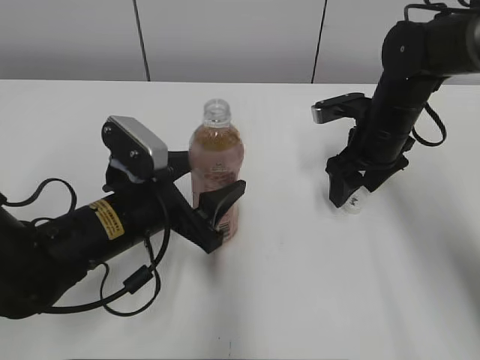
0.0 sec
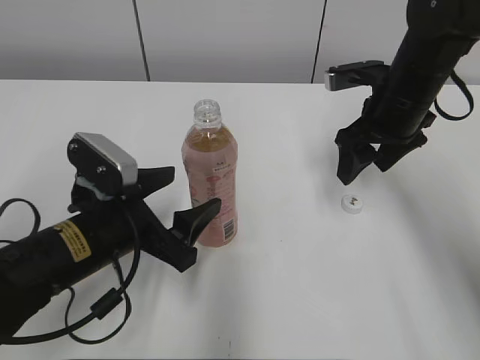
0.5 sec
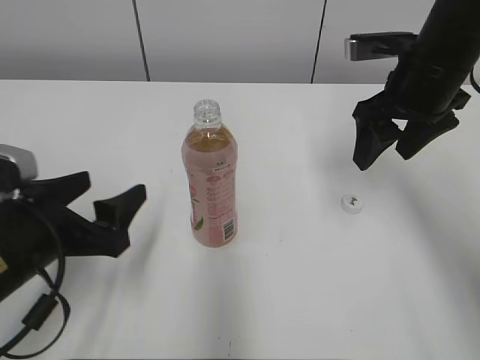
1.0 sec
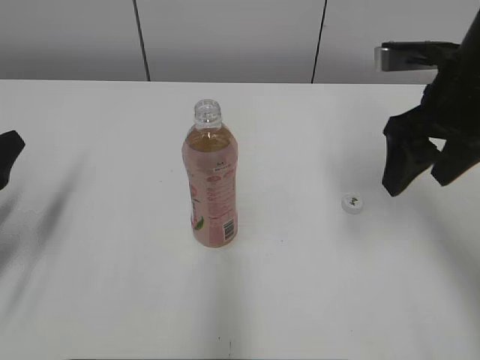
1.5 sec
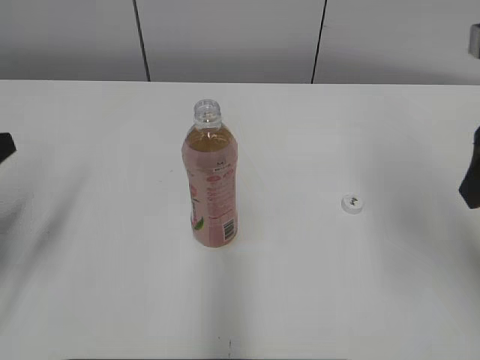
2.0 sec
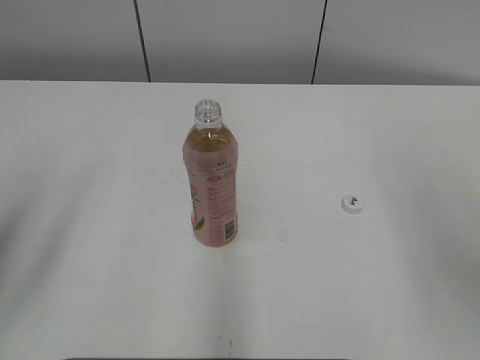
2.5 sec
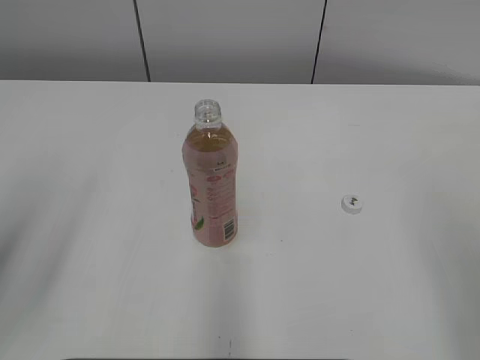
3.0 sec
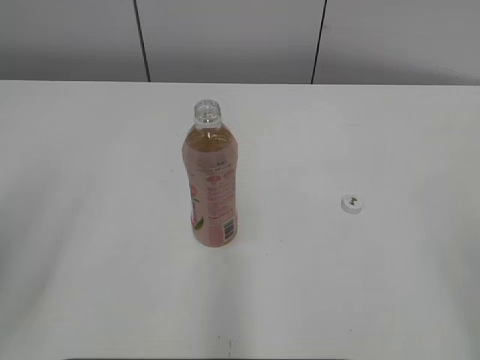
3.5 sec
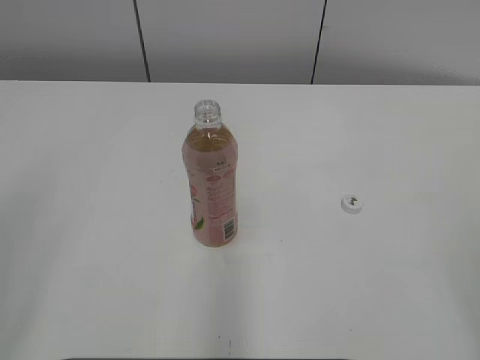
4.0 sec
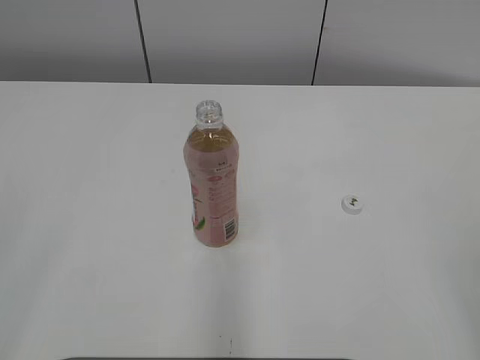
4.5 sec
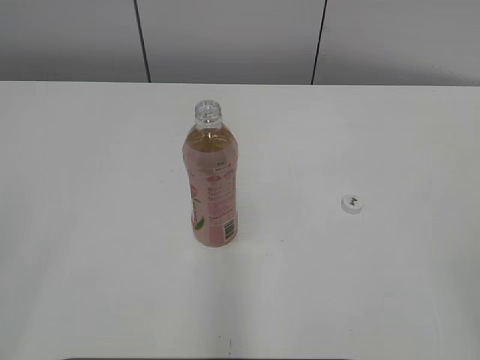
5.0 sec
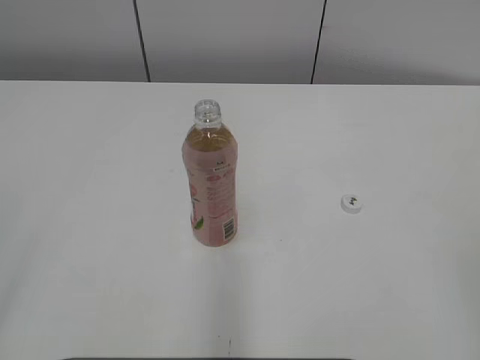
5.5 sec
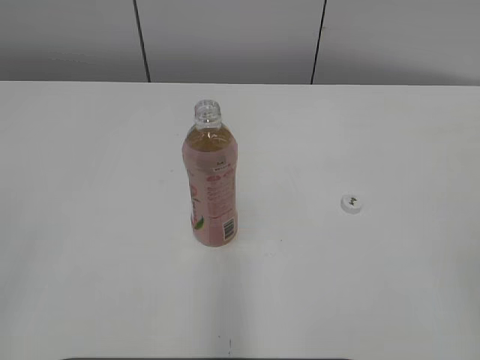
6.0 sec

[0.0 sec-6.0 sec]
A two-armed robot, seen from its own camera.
0.0 sec to 2.0 sec: The right gripper moves upward and backward, roughly 25 cm. The left gripper is displaced to the left and upward by roughly 20 cm.
2.0 sec to 4.0 sec: The right gripper travels backward by some 20 cm. Meanwhile the left gripper is displaced backward and upward by approximately 15 cm.

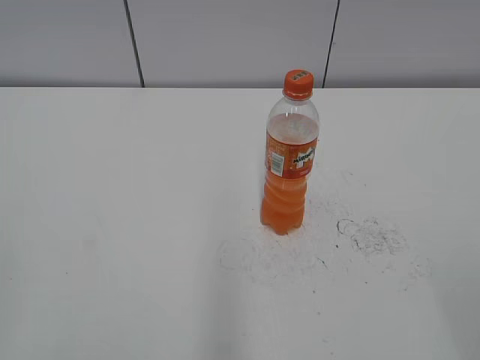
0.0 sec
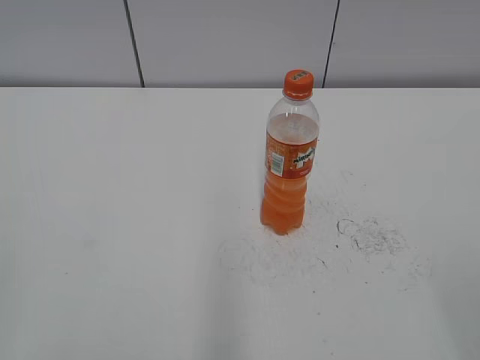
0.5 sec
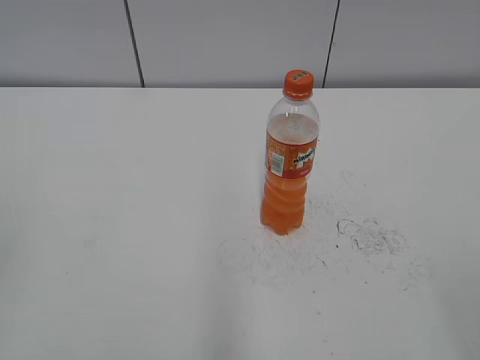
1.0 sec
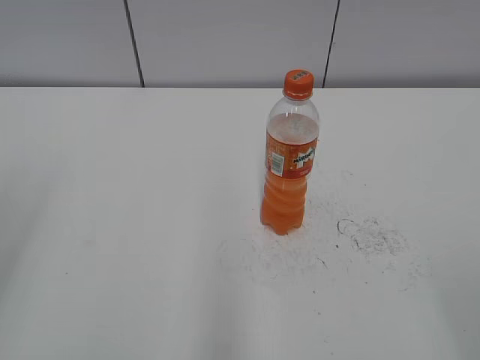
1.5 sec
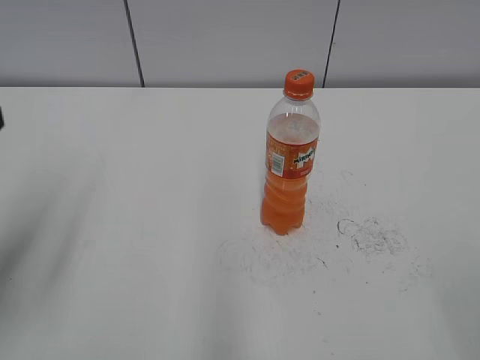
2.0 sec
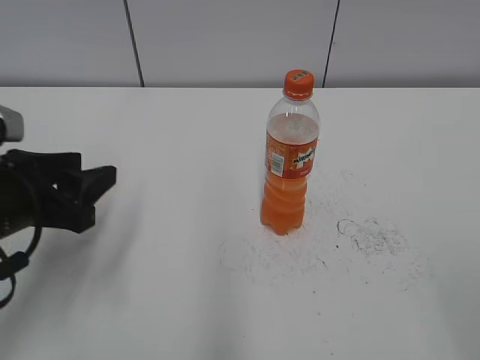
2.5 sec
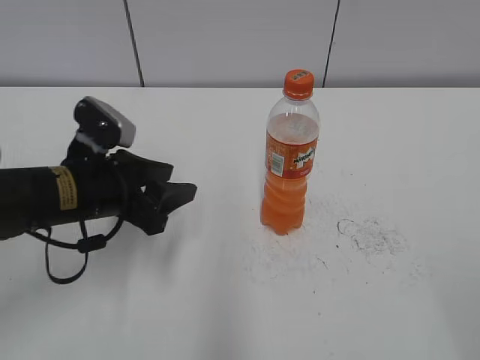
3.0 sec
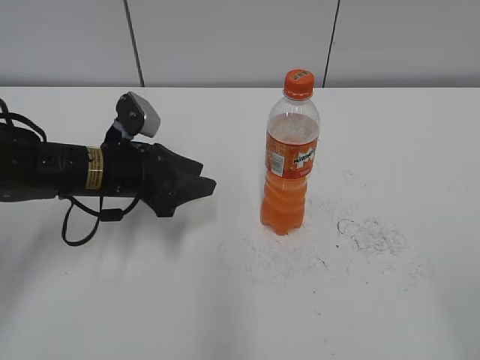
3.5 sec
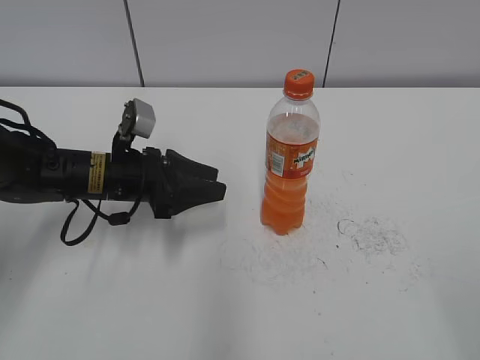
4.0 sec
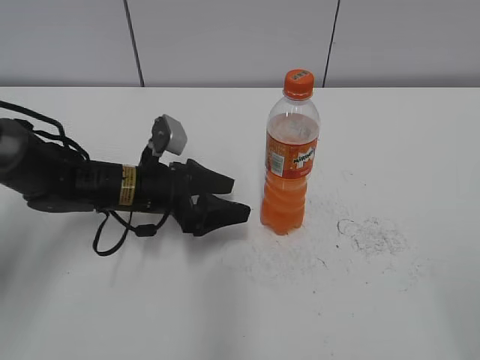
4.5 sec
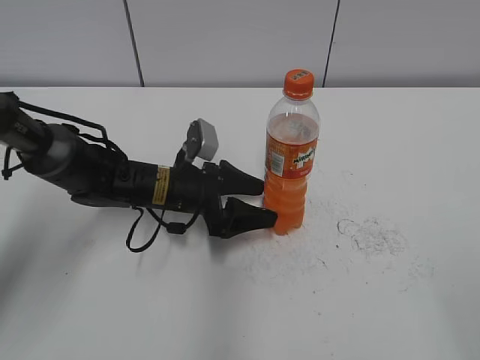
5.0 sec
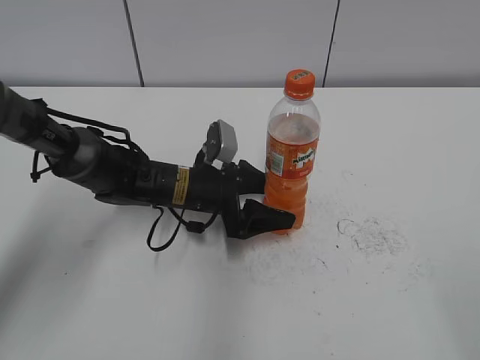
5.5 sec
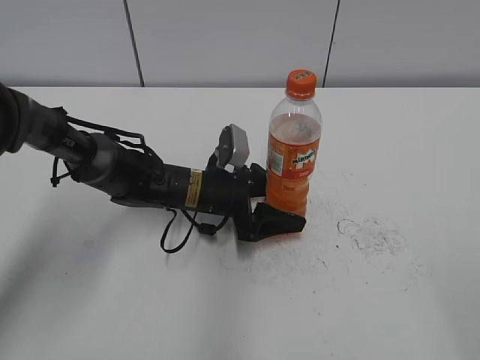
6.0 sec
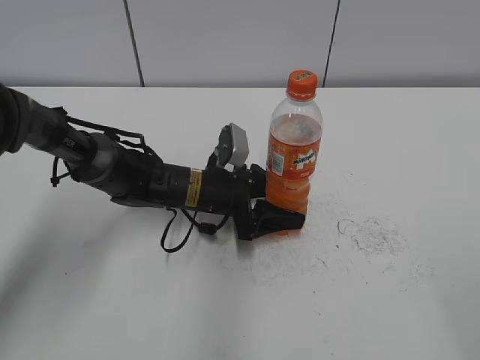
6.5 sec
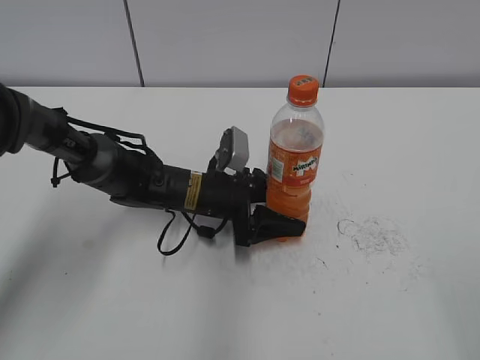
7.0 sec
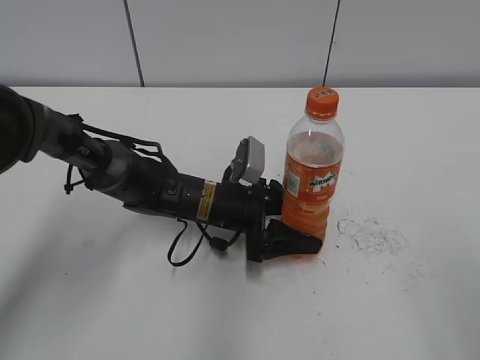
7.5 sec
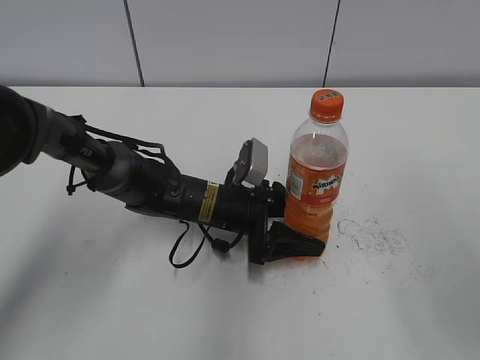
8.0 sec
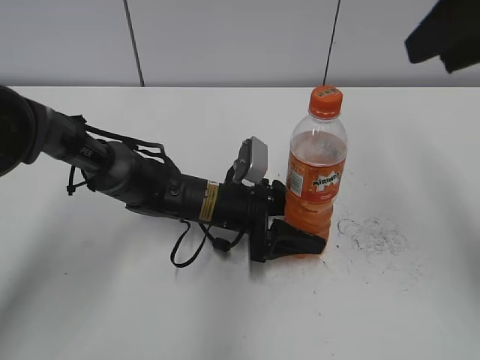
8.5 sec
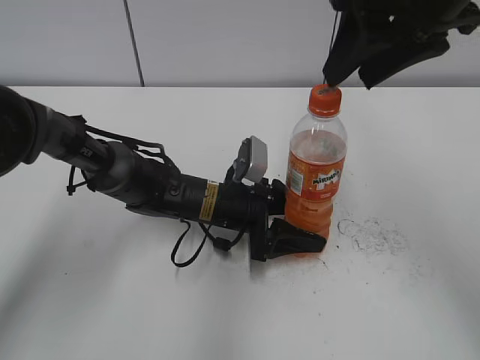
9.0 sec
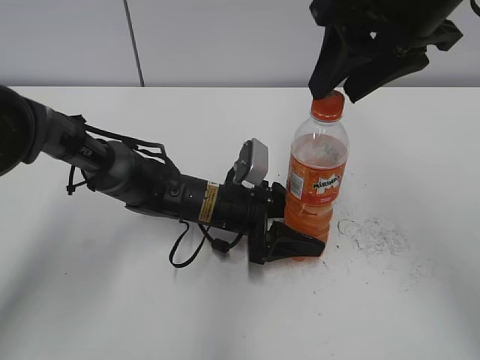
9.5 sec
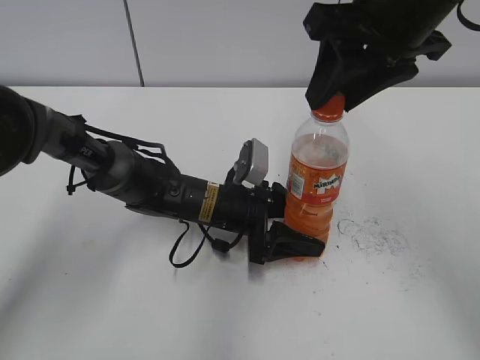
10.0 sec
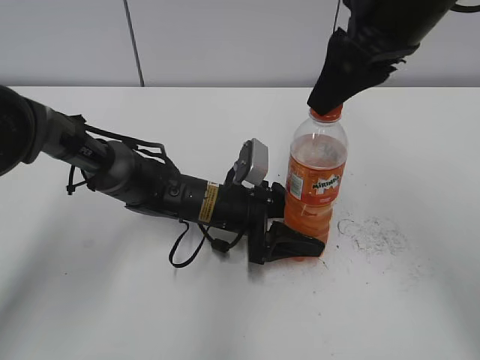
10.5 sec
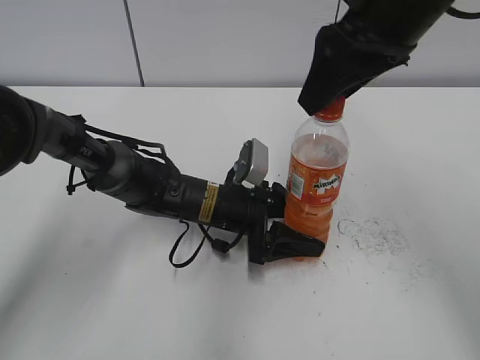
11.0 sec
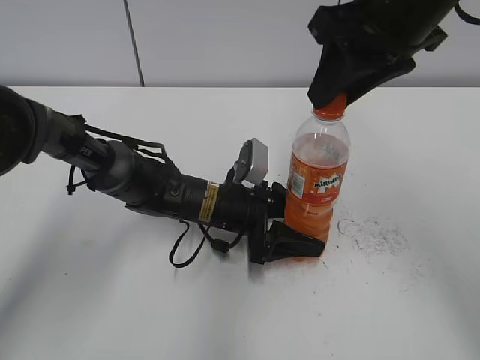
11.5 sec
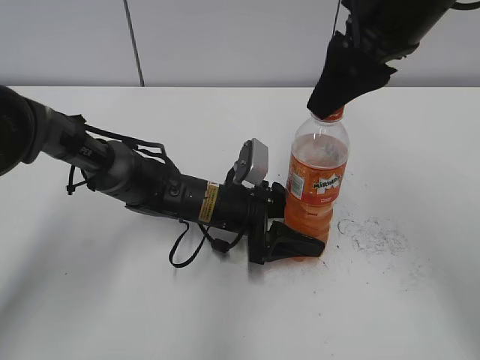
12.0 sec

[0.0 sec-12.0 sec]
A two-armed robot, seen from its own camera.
Step, 0.0 sec to 6.5 sec: Grab the Mirinda with the left hand.
Step, 7.0 sec to 7.5 sec: Move the Mirinda to the right with the left hand.
2.0 sec to 4.0 sec: The left gripper moves forward, downward and to the right, about 25 cm.
4.0 sec to 6.0 sec: The left gripper is displaced to the right and downward by approximately 10 cm, and opens.
6.0 sec to 8.0 sec: The right gripper goes some 15 cm forward.
8.0 sec to 10.0 sec: The right gripper heads forward and to the left, covering some 20 cm.
10.0 sec to 12.0 sec: The right gripper opens up.

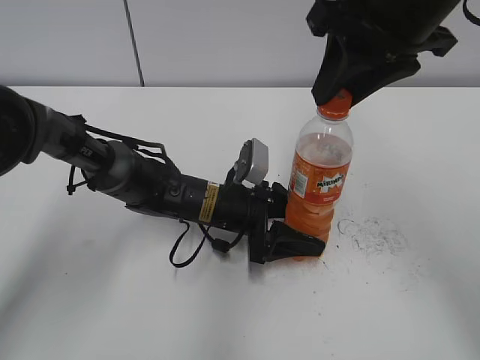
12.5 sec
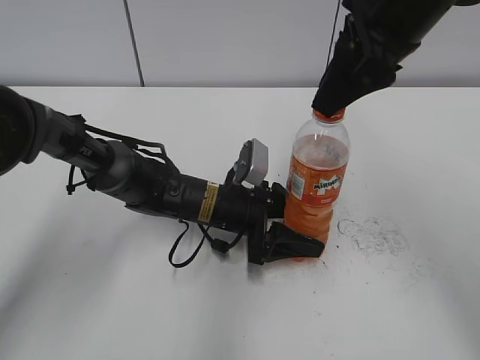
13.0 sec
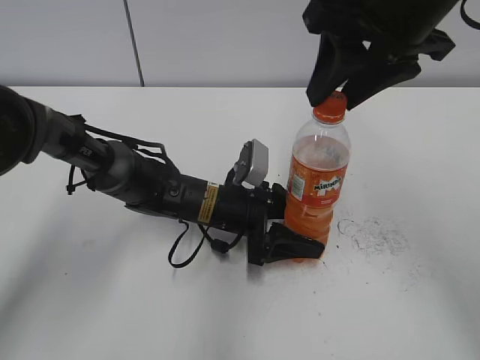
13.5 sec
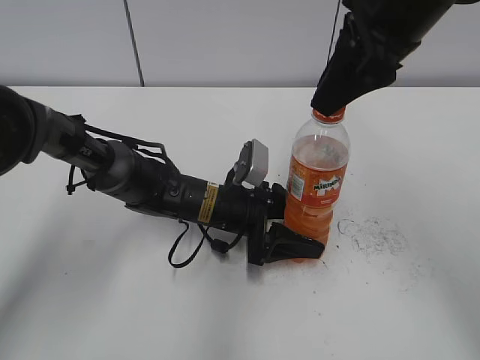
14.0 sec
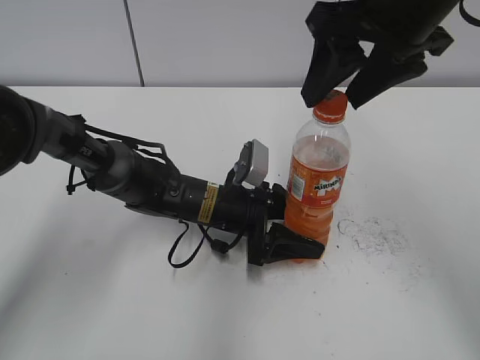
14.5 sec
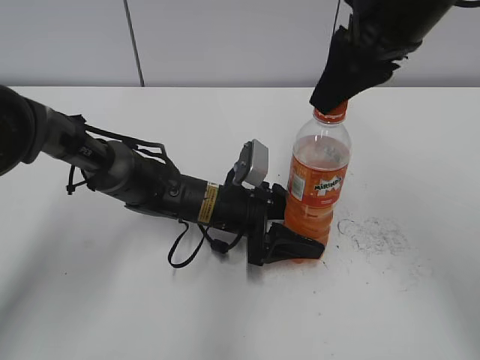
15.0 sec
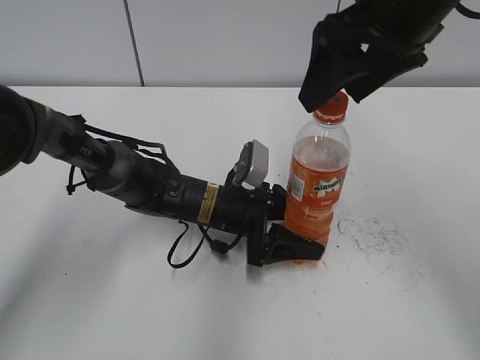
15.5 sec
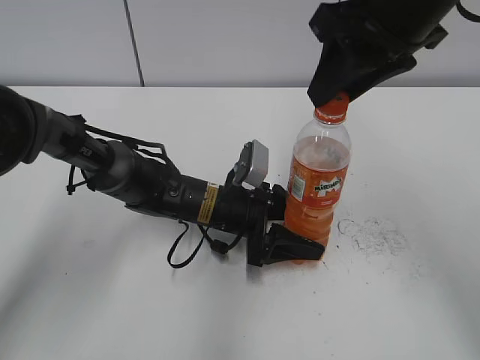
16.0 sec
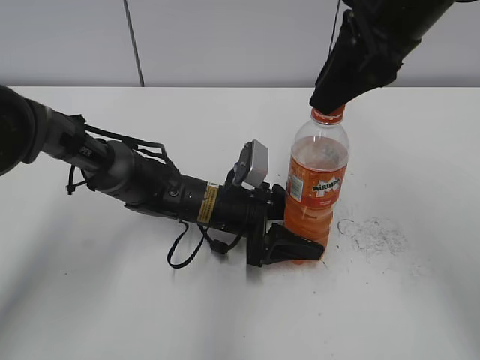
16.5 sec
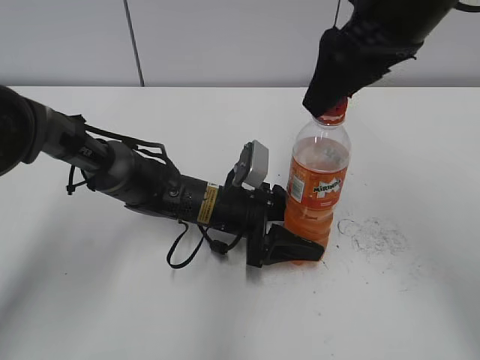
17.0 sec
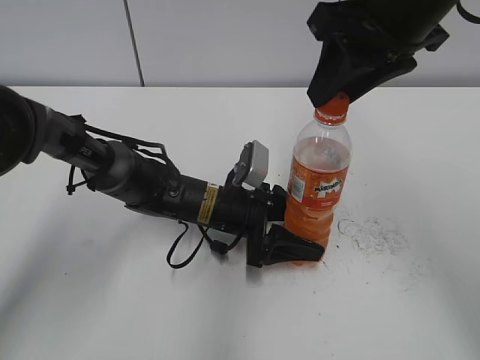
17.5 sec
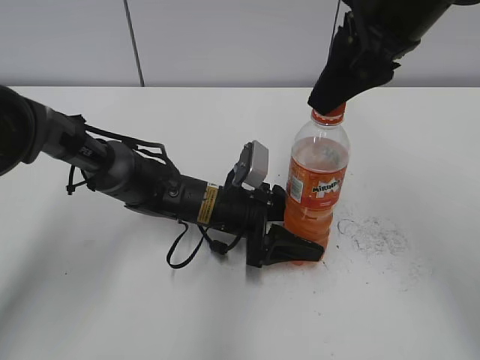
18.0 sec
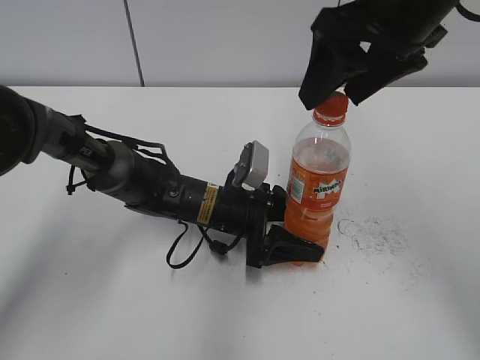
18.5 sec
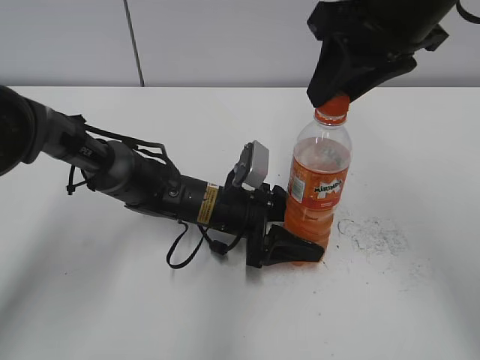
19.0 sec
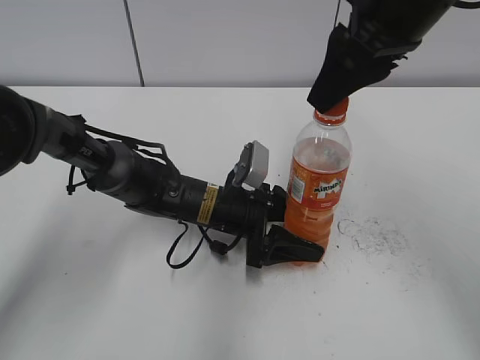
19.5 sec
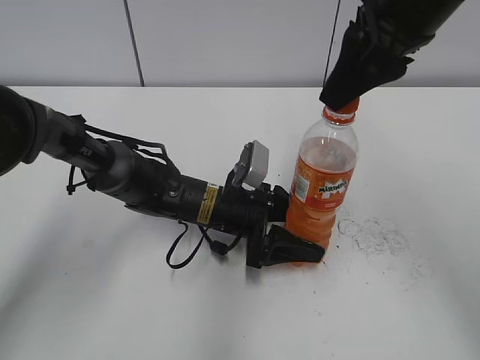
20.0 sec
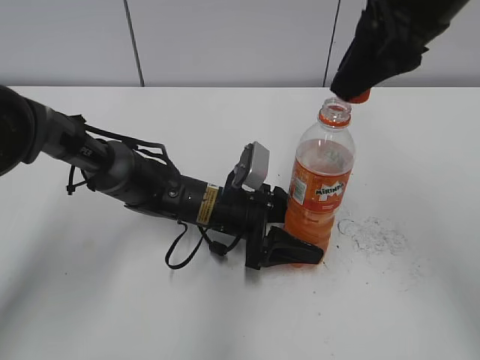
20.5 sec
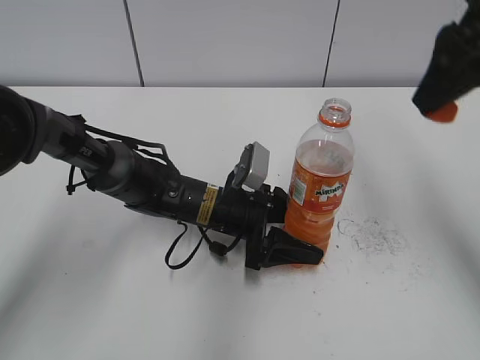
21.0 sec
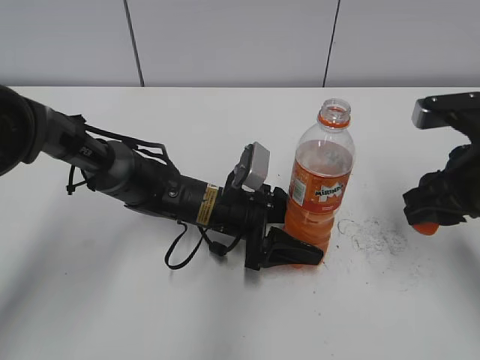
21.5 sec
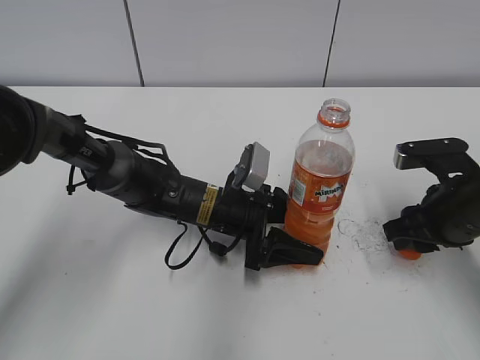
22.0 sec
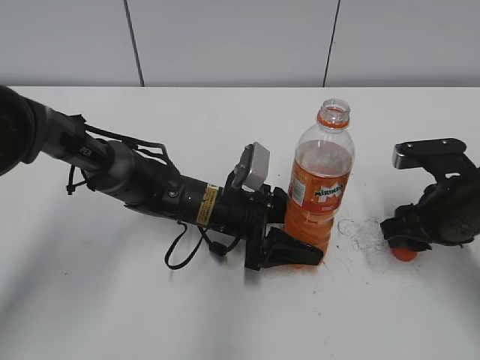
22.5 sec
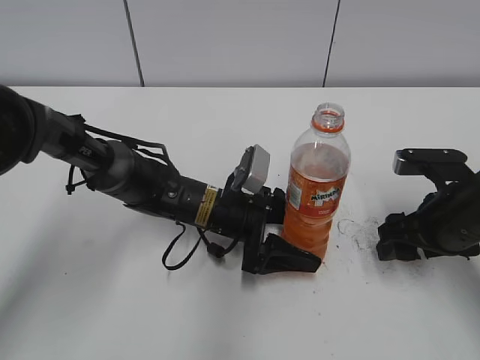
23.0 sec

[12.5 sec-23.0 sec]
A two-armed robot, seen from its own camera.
Step, 20.5 sec to 22.5 sec: Place the bottle cap on the table with the right hand.
12.5 sec to 14.5 sec: The right gripper opens.
14.5 sec to 16.5 sec: The right gripper closes its fingers.
16.5 sec to 19.0 sec: The right gripper opens, then closes once more.
19.0 sec to 21.0 sec: The right gripper moves to the right, about 10 cm.
21.0 sec to 23.0 sec: The right gripper is displaced downward by some 20 cm, and opens up. Meanwhile the left gripper opens.
